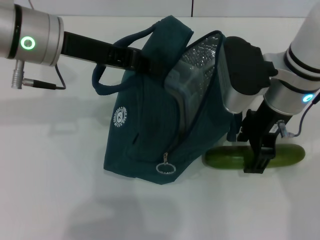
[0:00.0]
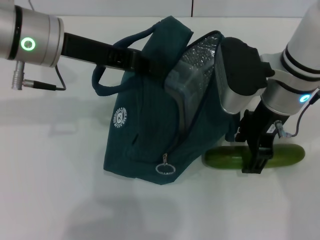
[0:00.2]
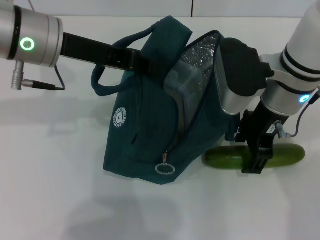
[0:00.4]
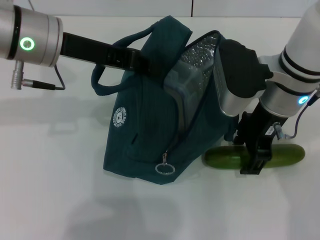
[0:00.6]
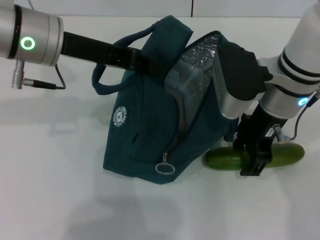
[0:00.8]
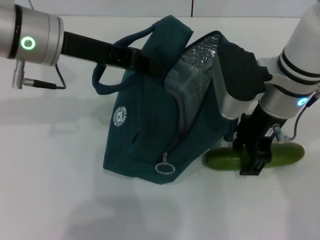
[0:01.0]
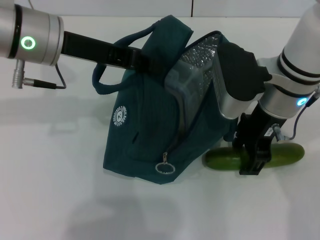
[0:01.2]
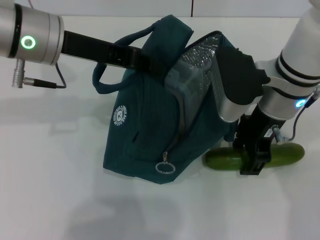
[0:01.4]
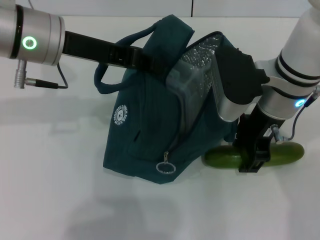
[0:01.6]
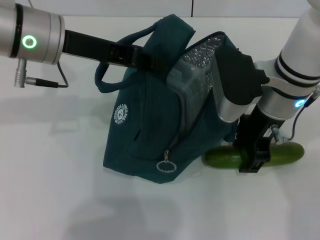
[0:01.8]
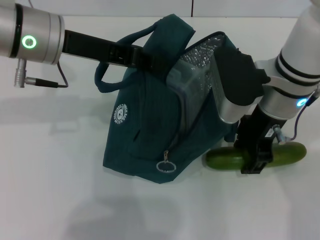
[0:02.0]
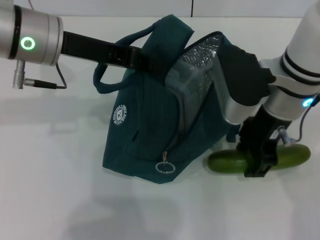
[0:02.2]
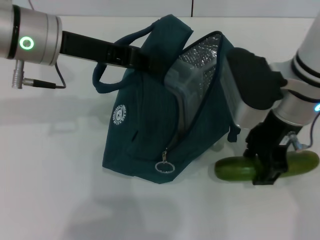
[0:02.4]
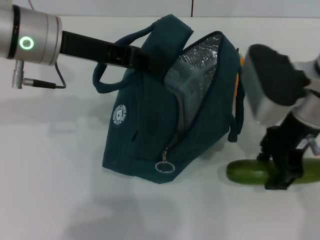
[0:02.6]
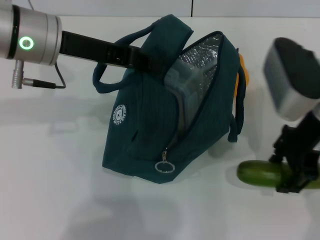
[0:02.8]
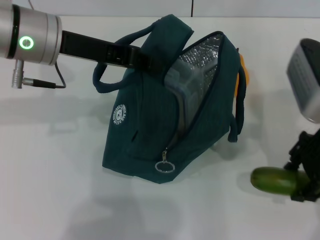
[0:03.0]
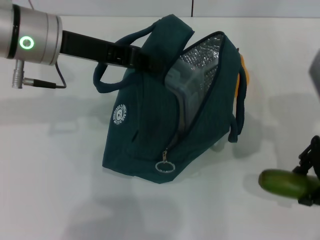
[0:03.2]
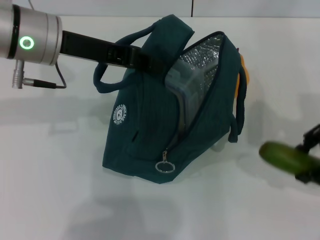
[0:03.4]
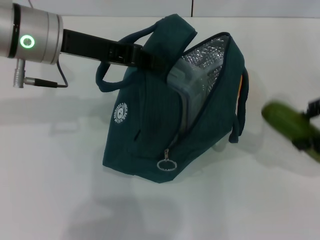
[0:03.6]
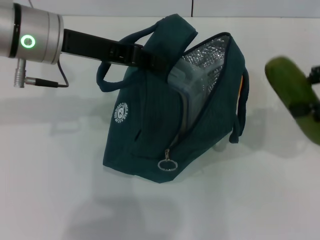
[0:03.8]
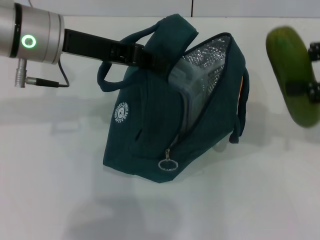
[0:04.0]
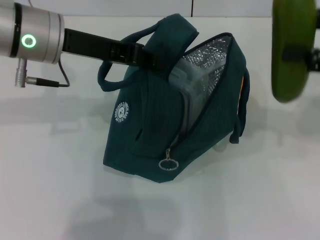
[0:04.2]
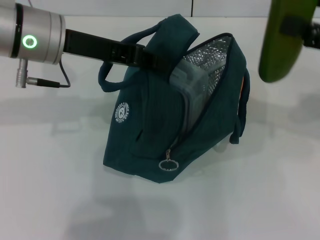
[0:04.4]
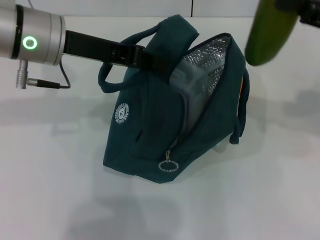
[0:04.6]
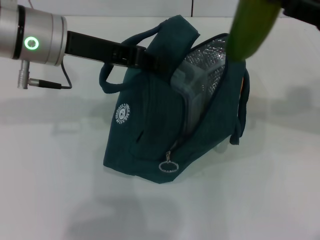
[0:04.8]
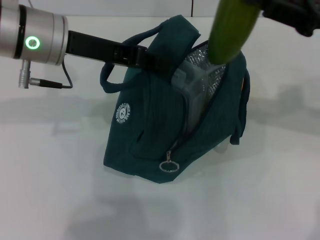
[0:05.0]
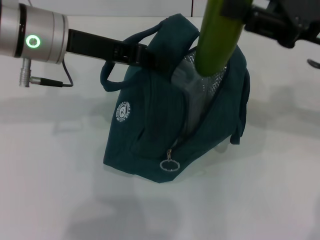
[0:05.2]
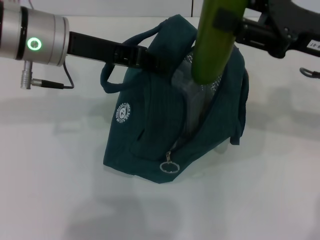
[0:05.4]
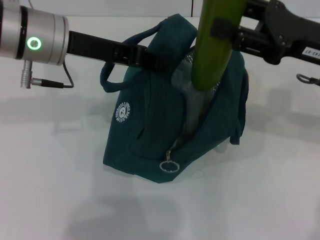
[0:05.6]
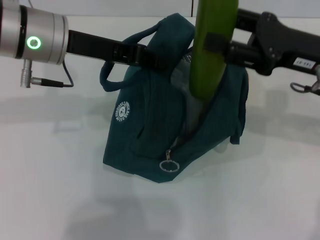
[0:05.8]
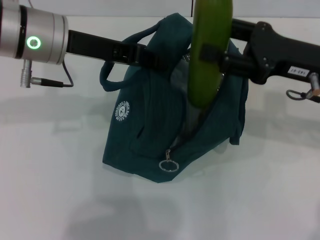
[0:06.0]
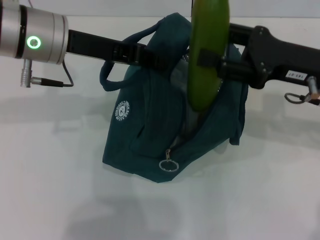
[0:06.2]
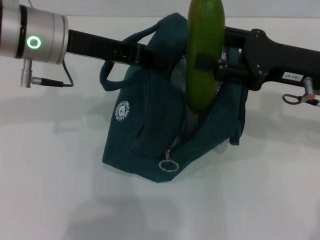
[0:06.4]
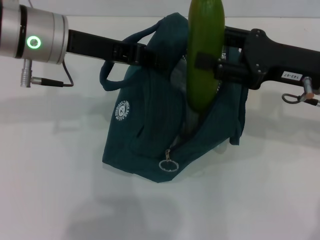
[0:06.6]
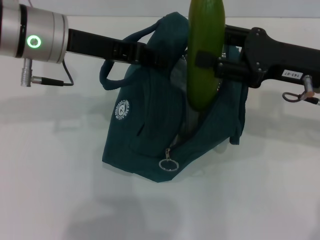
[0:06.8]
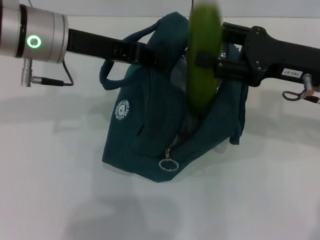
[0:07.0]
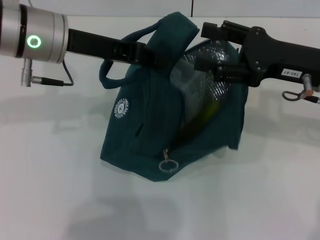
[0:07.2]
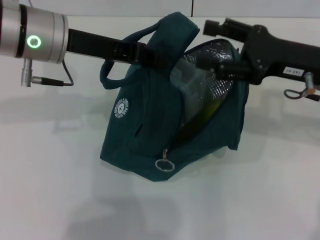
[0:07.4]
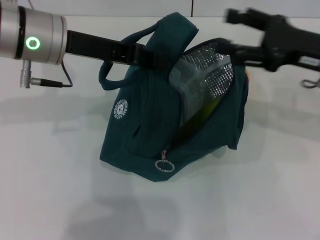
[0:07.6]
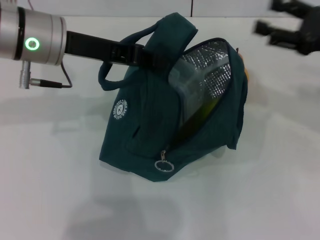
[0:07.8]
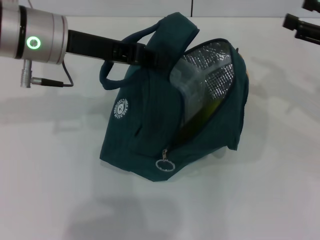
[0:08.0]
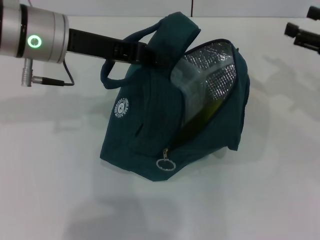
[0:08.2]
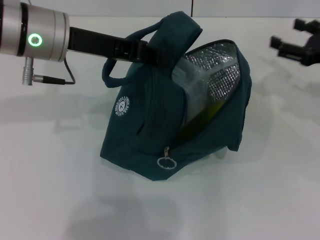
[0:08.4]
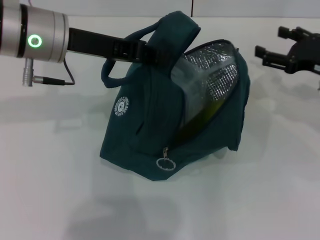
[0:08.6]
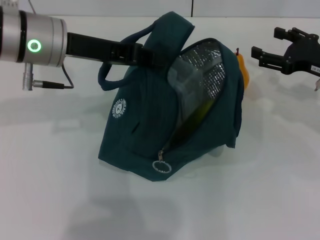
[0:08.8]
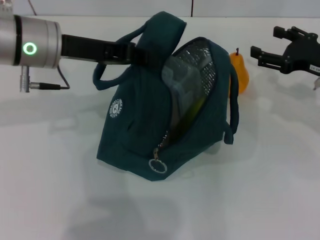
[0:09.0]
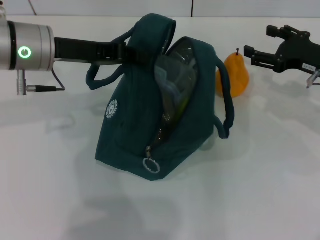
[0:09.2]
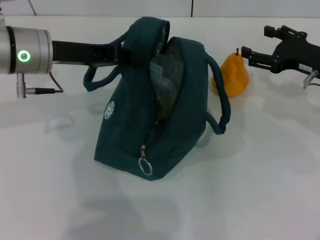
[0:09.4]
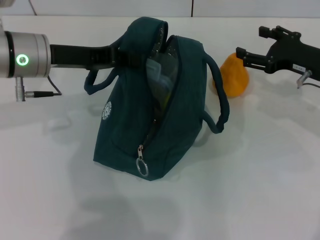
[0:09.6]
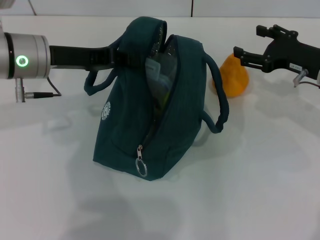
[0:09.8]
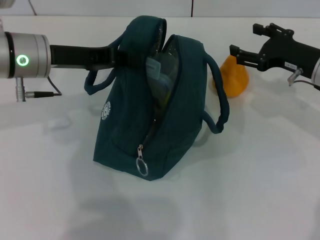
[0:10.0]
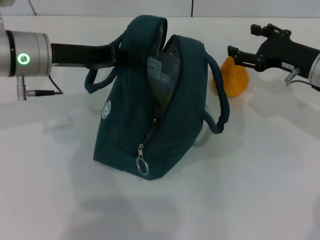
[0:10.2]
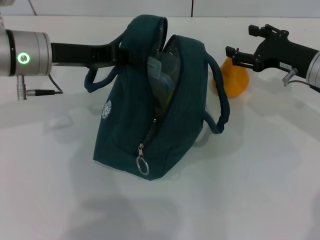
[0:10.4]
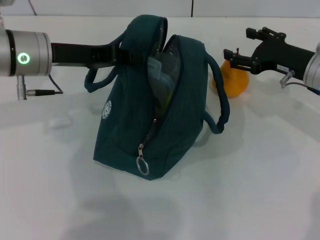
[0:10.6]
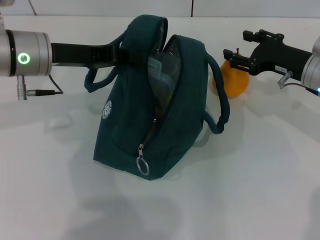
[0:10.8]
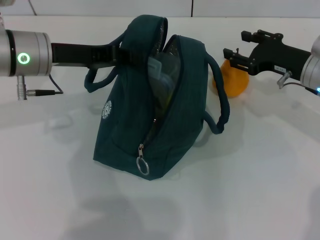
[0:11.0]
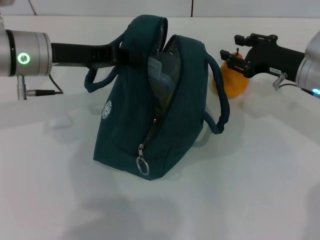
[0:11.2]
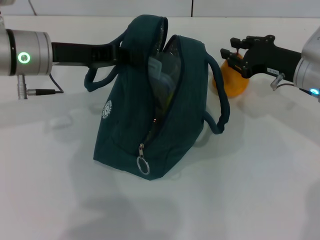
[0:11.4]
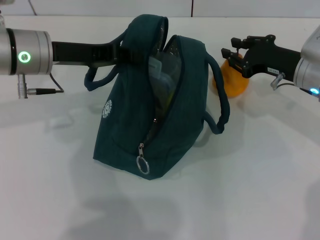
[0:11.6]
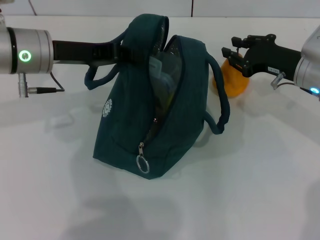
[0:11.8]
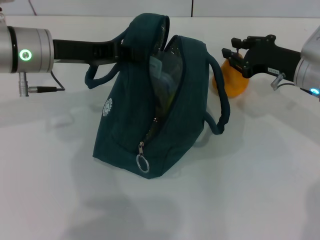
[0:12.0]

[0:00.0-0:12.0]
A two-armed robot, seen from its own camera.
Step, 0:00.0 to 0:02.8: Pick up the cucumber with your right hand.
Step, 0:03.0 to 0:07.2: Put the cucumber into the lunch bag with your right hand.
0:00.0 to 0:01.6: Both grippers stay about where they are.
0:01.6 to 0:03.0: The right gripper goes about 10 cm to the right.
0:03.0 to 0:04.4: The right gripper heads to the right, covering roughly 10 cm.
0:04.4 to 0:06.0: The right gripper shifts some 10 cm to the left and downward.
0:06.0 to 0:07.6: The grippers make only small movements.
0:07.6 to 0:09.0: The right gripper heads downward, covering roughly 5 cm.
0:09.0 to 0:10.4: The grippers stay close to where they were, moving slightly.
0:10.4 to 0:12.0: The right gripper closes its fingers.

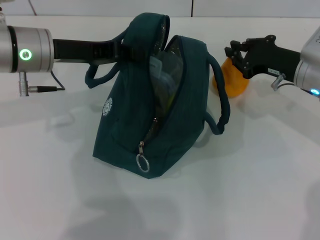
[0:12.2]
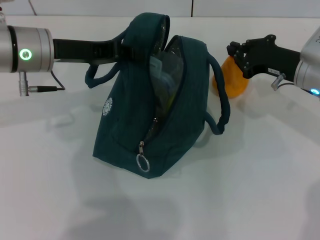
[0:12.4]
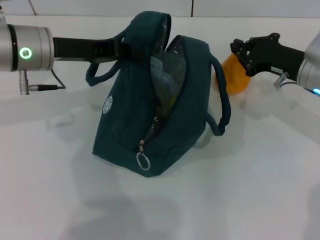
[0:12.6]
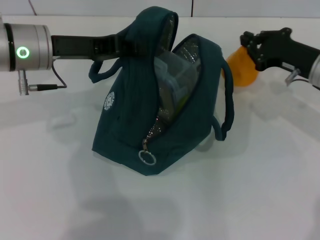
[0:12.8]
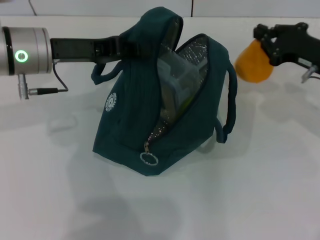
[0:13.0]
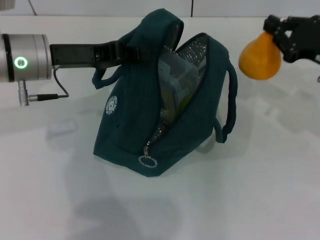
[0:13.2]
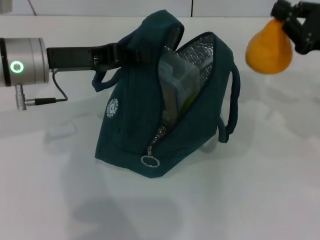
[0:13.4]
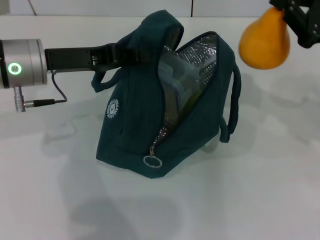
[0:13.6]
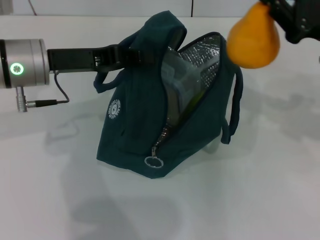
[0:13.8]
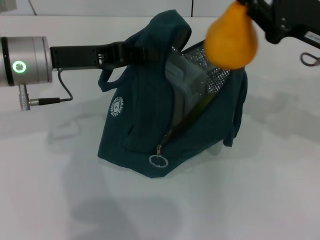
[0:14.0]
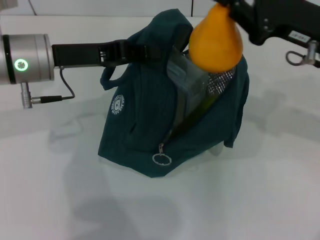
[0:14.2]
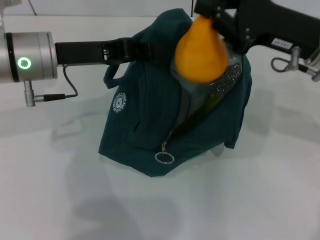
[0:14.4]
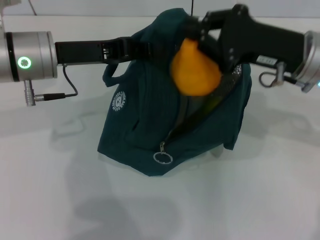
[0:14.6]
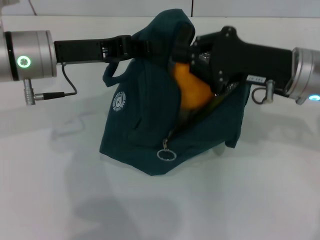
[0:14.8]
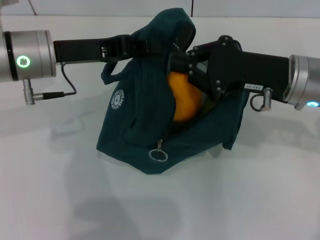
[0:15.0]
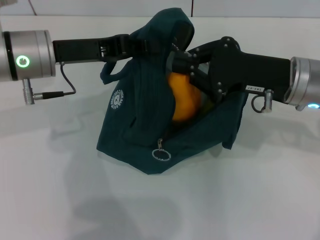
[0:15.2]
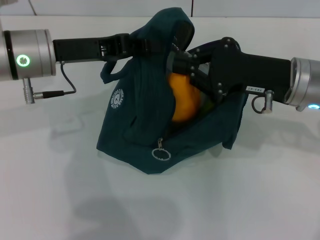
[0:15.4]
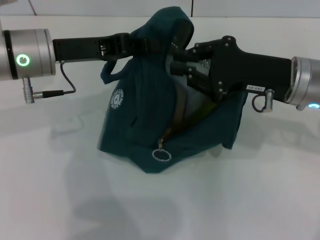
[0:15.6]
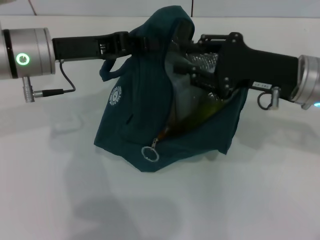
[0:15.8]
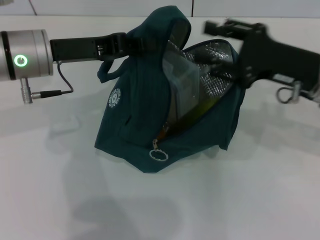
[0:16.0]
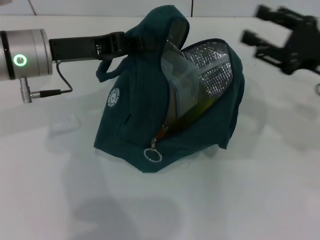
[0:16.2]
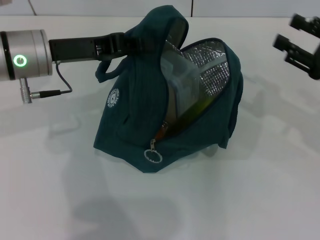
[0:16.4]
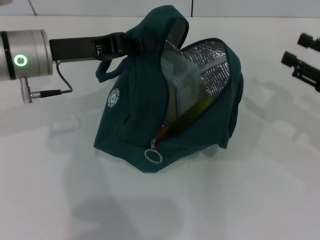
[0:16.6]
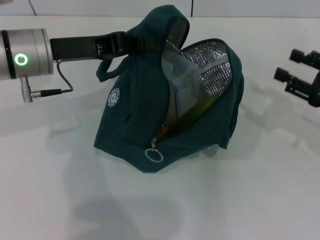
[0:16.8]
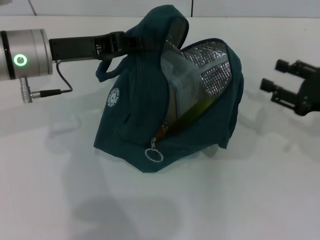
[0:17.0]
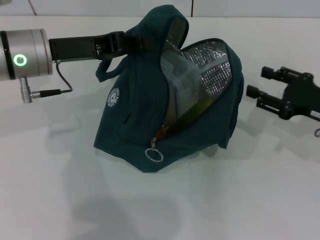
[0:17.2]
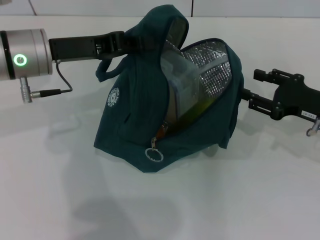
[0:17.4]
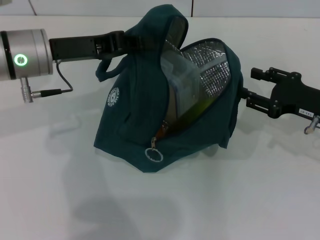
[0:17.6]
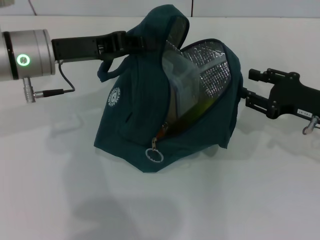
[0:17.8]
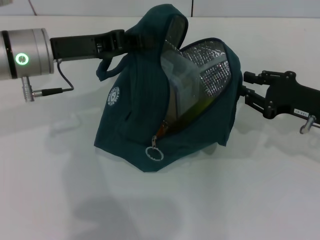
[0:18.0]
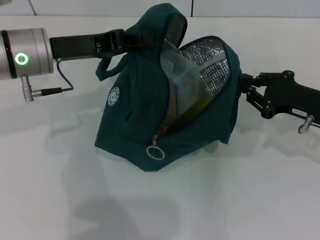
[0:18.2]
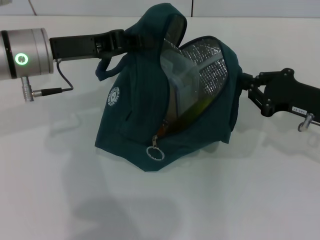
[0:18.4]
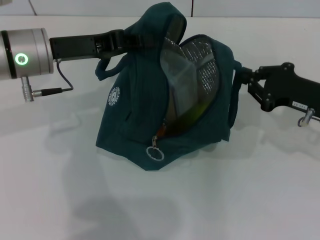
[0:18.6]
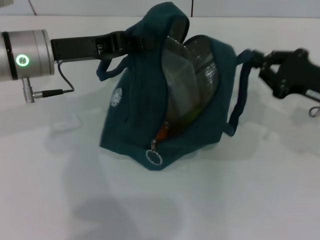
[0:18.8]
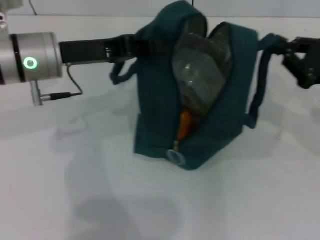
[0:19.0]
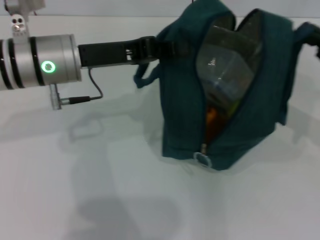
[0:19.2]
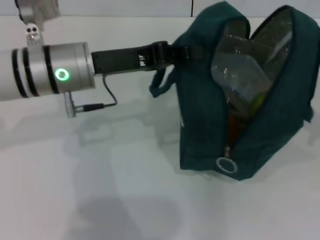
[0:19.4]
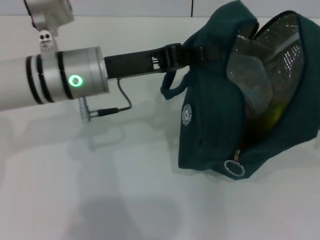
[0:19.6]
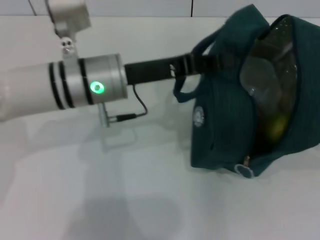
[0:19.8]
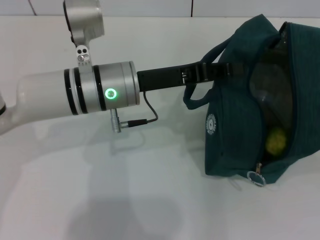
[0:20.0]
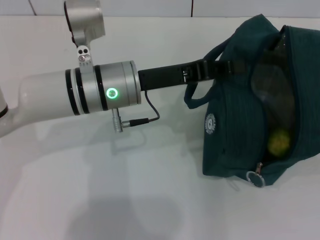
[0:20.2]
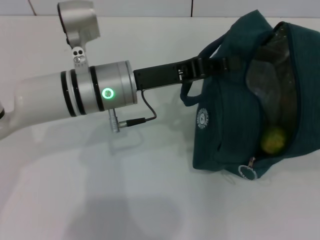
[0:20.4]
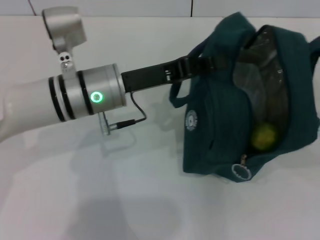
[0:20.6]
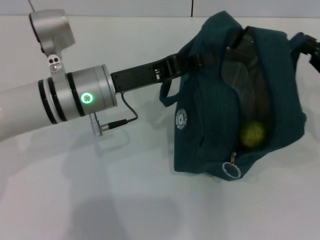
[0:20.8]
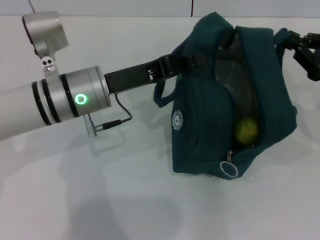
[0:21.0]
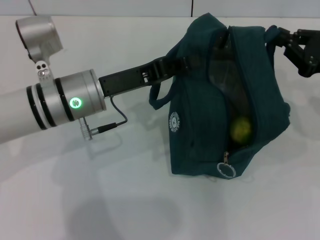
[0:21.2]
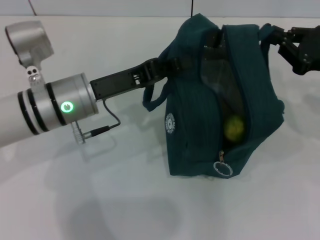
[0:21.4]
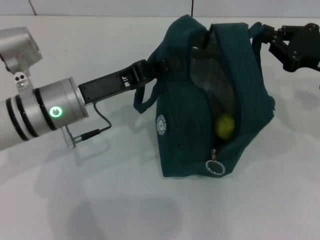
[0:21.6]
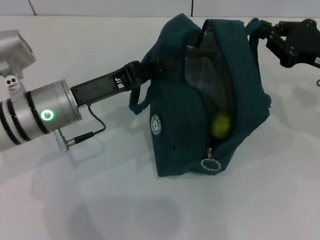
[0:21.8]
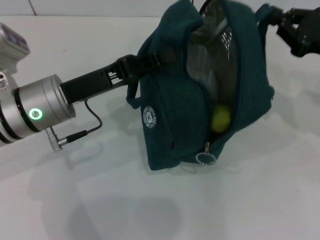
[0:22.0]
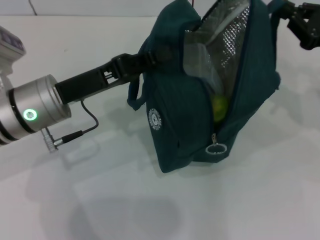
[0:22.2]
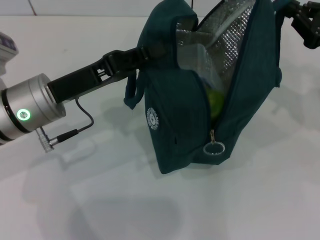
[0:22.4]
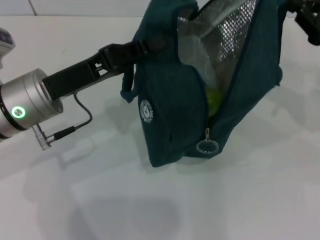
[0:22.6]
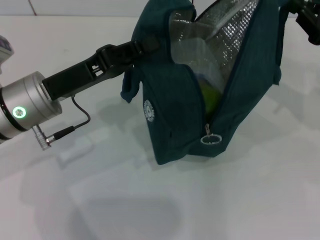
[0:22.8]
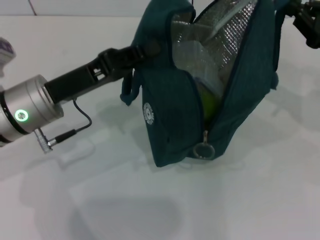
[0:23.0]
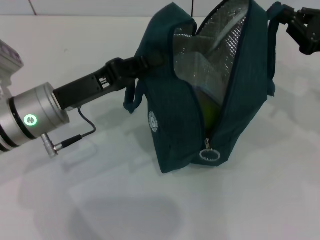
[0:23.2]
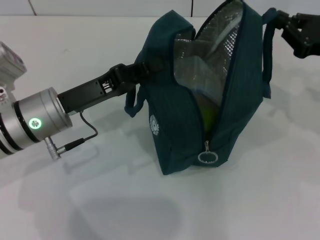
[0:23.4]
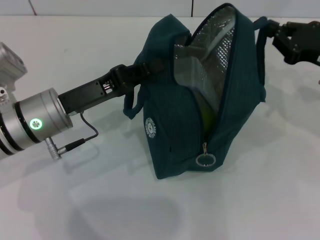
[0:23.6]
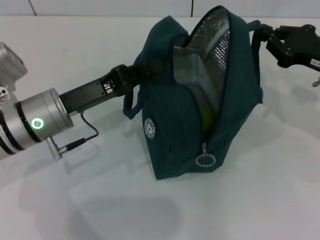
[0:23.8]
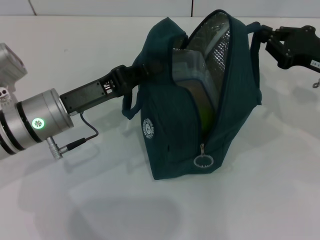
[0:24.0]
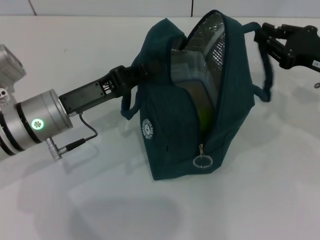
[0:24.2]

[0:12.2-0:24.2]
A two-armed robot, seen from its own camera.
Step, 0:12.4 to 0:15.6: Secure the lunch bag with your left hand.
0:12.2 to 0:13.8: The right gripper is displaced upward and backward by about 10 cm.
0:13.8 to 0:15.2: The right gripper moves to the left, approximately 10 cm.
0:15.2 to 0:16.6: The right gripper travels to the right by about 15 cm, and opens.
0:16.6 to 0:18.2: The right gripper moves to the left, some 5 cm.
0:18.2 to 0:19.8: The two grippers go some 10 cm to the right. The right gripper closes its fingers.
0:19.8 to 0:21.2: The right gripper travels to the left and forward by some 10 cm.
0:21.2 to 0:22.6: The left gripper ends up some 5 cm from where it was.
